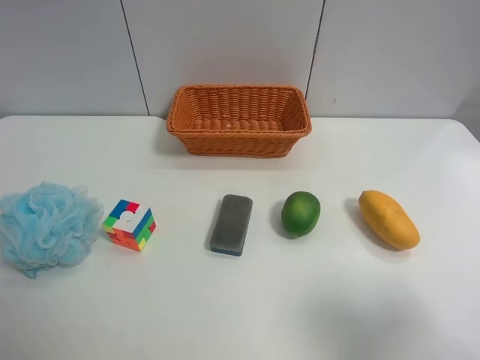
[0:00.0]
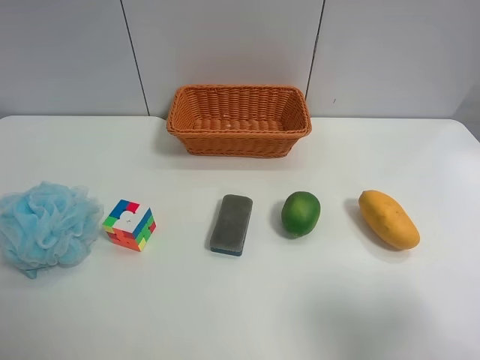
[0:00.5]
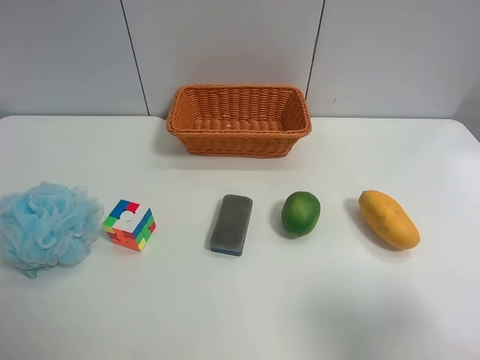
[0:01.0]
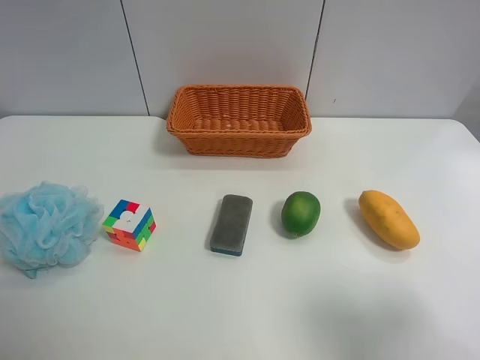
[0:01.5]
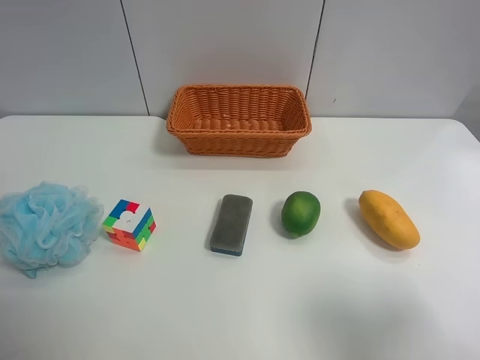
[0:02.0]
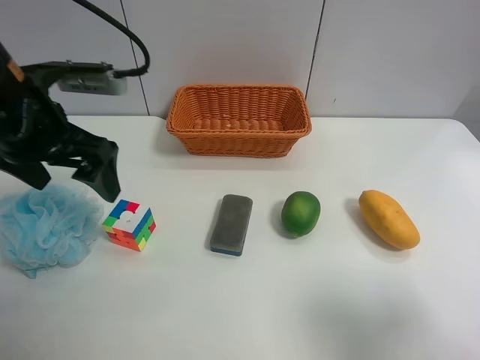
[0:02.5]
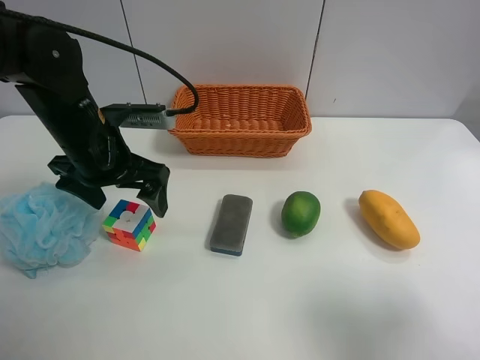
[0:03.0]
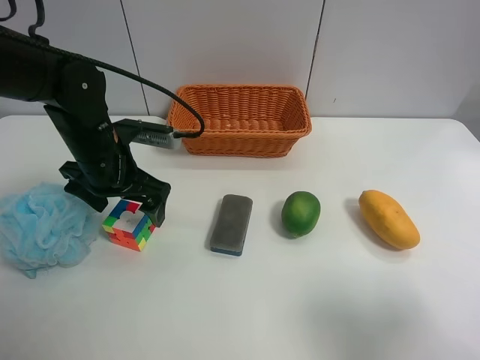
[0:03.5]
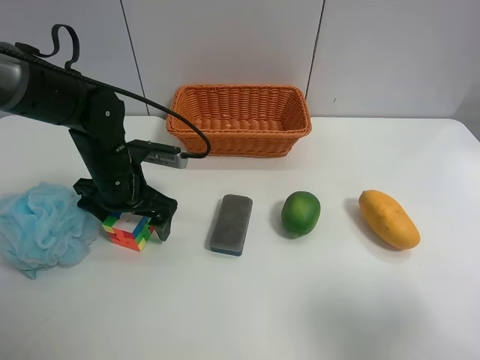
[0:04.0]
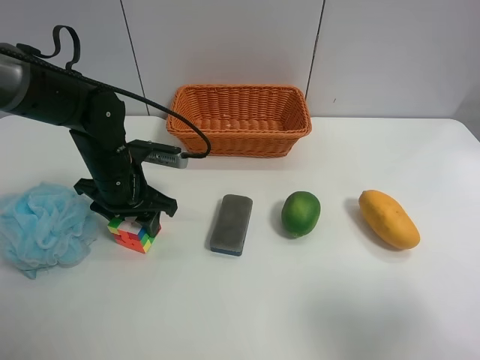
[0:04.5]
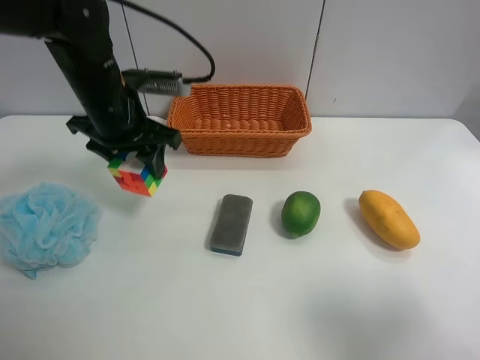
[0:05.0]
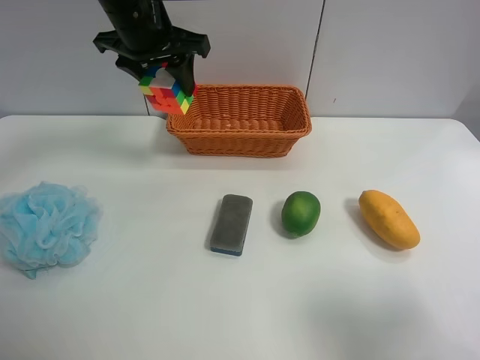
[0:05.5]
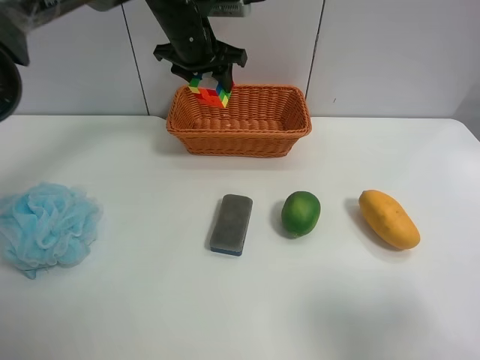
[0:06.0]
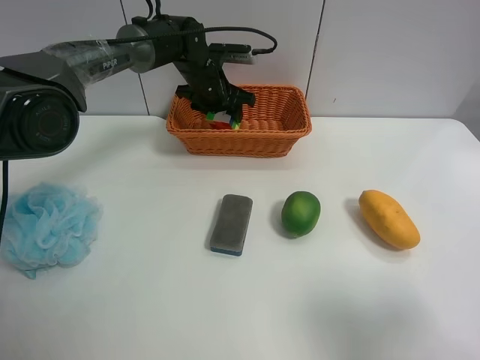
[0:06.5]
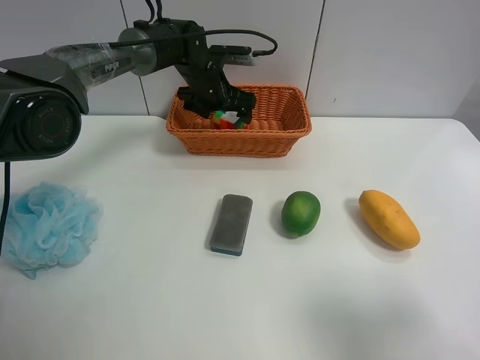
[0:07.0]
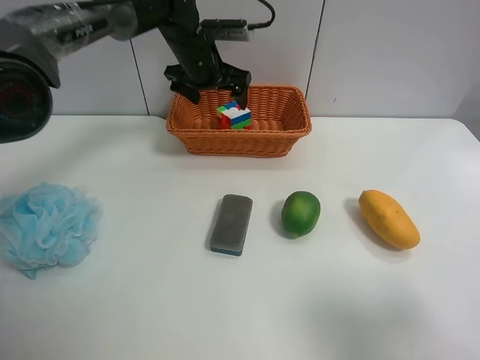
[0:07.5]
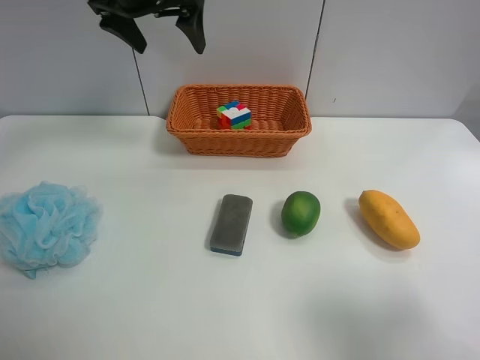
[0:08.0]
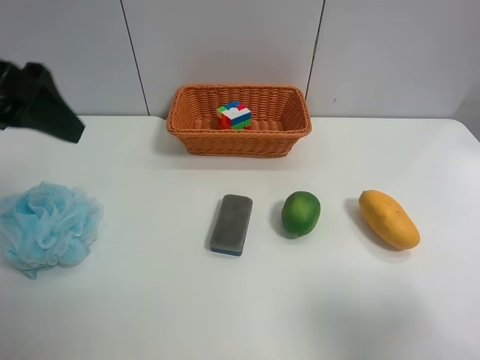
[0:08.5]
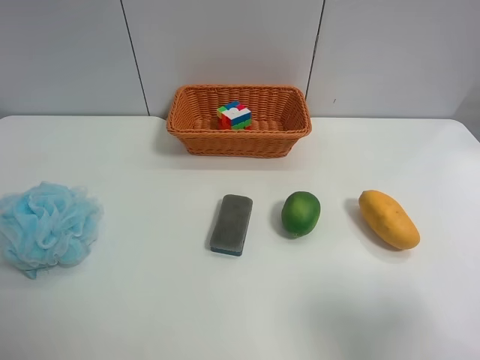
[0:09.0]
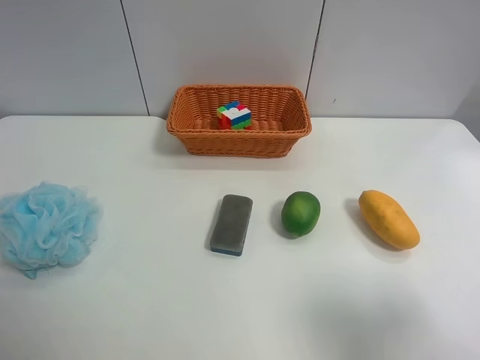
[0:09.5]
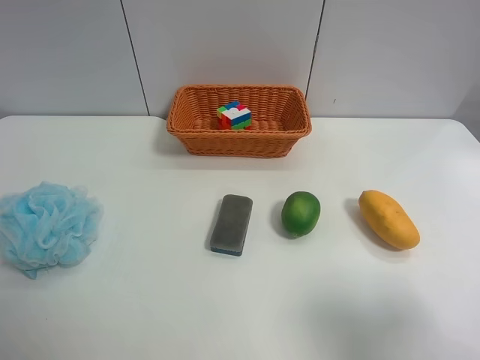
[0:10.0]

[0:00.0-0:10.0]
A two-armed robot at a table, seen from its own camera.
Task of the whole recording: use the left gripper to grab items from the table and place them in the basket.
Step, 0:00.0 to 0:04.0: Grasp the Rubik's Cube with the left gripper.
Step, 0:04.5 to 0:07.0: Place the Rubik's Cube into the basket with the left gripper.
0:02.0 to 0:04.0: The left gripper goes roughly 30 cm downward, forward and to the right.
0:04.0 to 0:06.0: The left gripper is displaced forward, upward and to the right by some 25 cm, and closes its fingers.
0:06.0 to 0:08.0: The left gripper is displaced upward, backward and to the left by approximately 15 cm, and opens its fingers.
0:08.0 to 0:10.0: The left gripper shifts roughly 40 cm backward.
